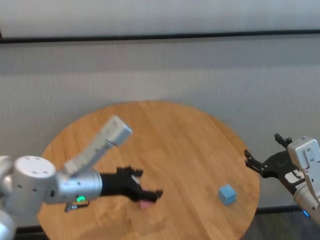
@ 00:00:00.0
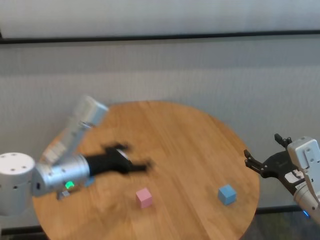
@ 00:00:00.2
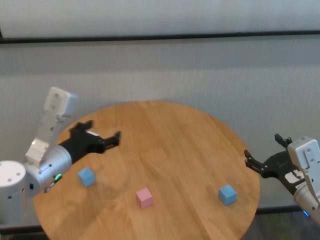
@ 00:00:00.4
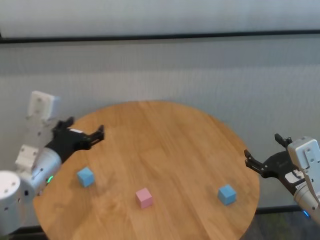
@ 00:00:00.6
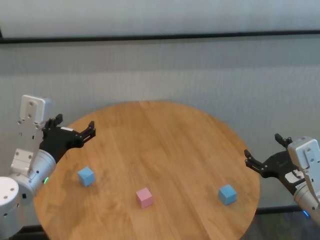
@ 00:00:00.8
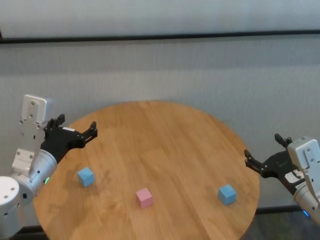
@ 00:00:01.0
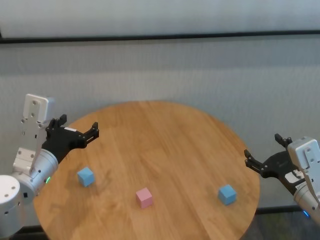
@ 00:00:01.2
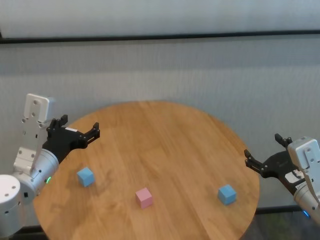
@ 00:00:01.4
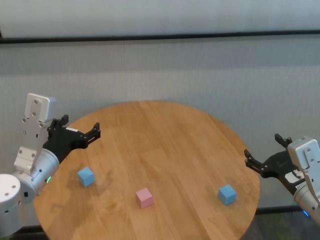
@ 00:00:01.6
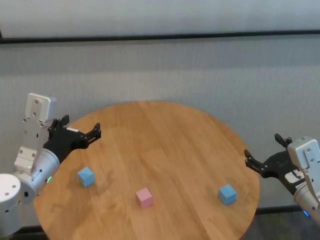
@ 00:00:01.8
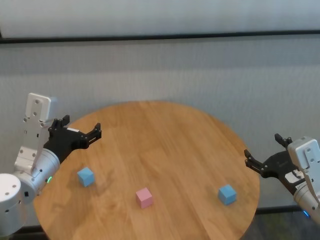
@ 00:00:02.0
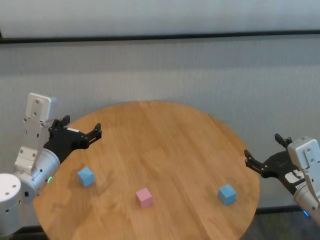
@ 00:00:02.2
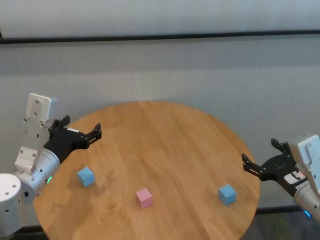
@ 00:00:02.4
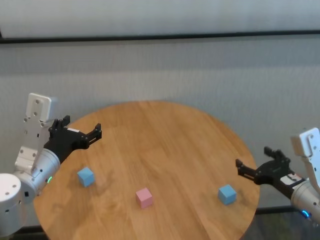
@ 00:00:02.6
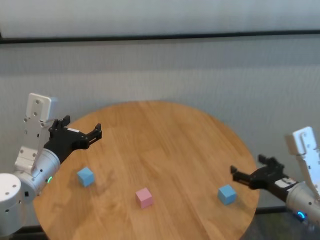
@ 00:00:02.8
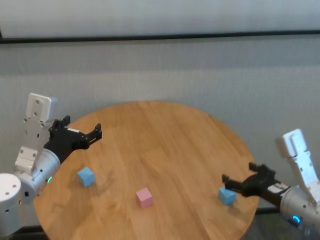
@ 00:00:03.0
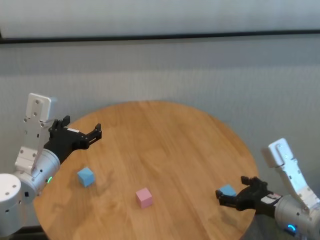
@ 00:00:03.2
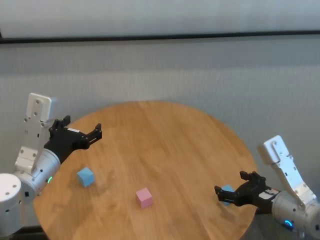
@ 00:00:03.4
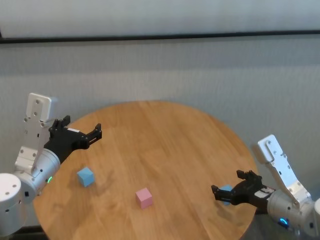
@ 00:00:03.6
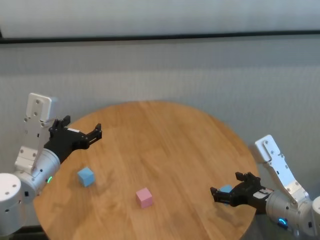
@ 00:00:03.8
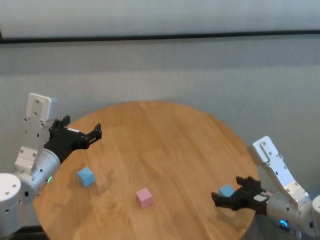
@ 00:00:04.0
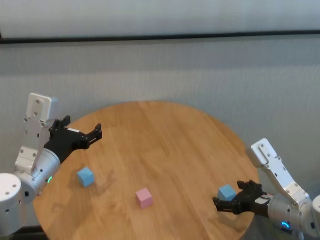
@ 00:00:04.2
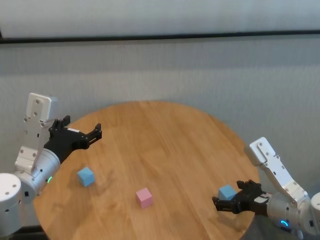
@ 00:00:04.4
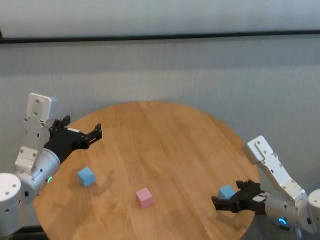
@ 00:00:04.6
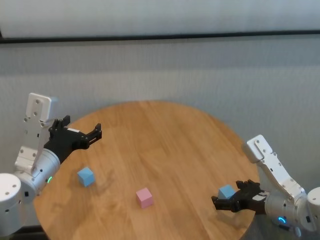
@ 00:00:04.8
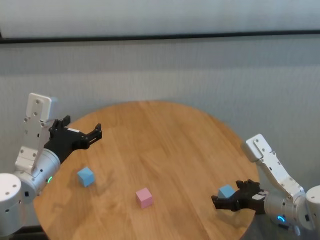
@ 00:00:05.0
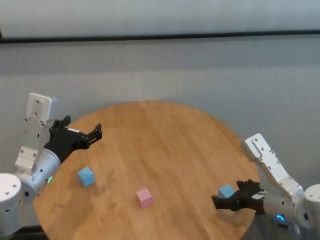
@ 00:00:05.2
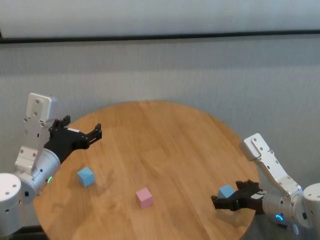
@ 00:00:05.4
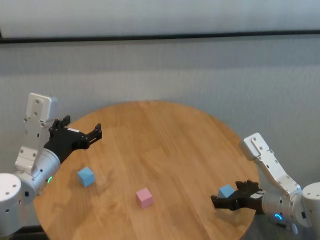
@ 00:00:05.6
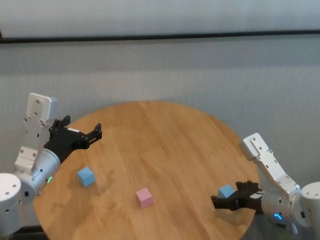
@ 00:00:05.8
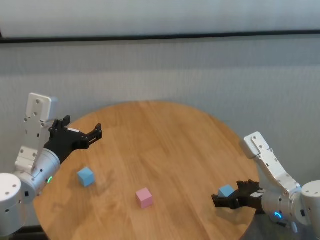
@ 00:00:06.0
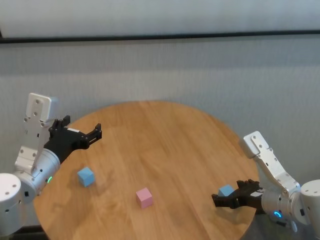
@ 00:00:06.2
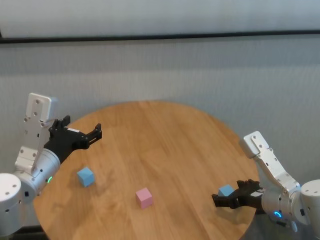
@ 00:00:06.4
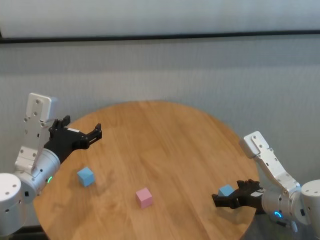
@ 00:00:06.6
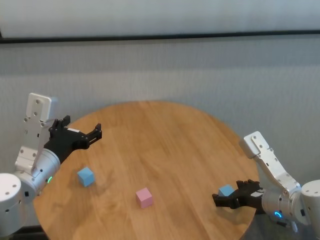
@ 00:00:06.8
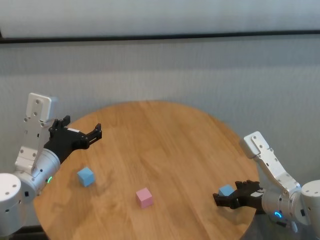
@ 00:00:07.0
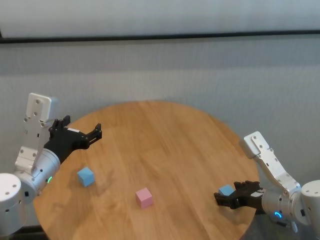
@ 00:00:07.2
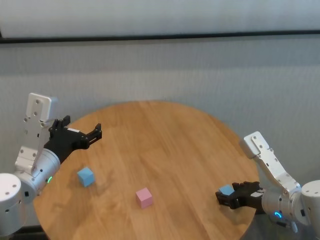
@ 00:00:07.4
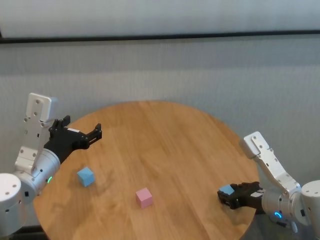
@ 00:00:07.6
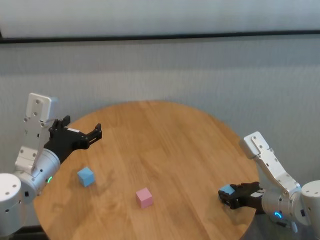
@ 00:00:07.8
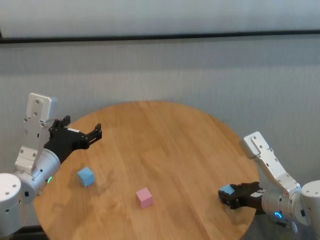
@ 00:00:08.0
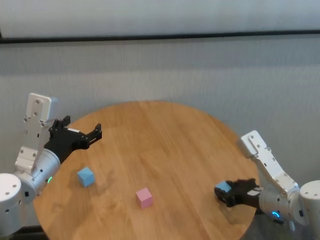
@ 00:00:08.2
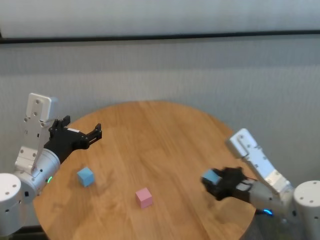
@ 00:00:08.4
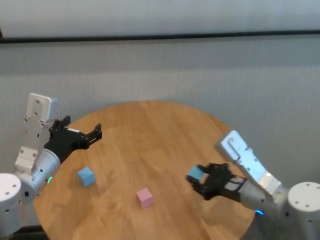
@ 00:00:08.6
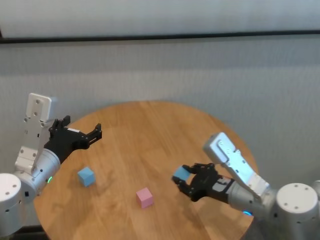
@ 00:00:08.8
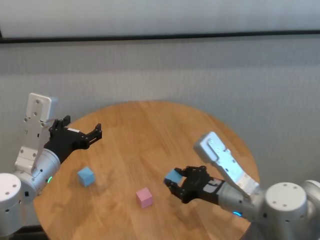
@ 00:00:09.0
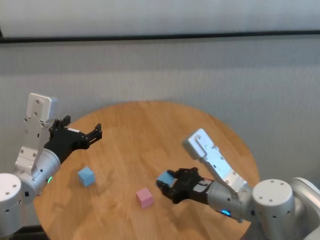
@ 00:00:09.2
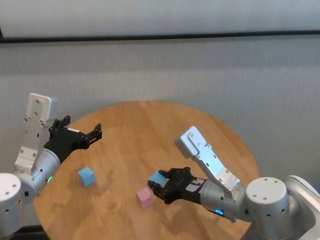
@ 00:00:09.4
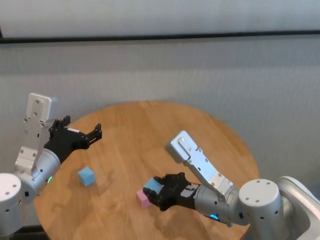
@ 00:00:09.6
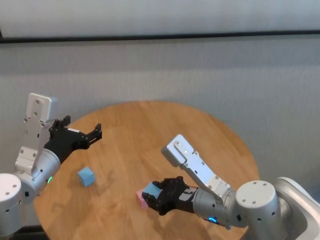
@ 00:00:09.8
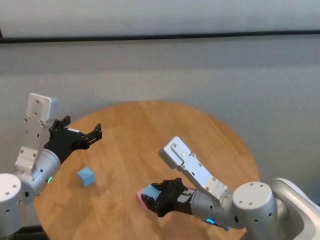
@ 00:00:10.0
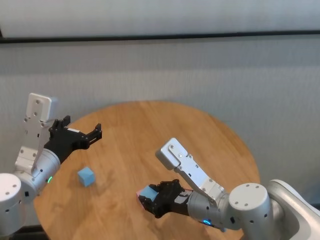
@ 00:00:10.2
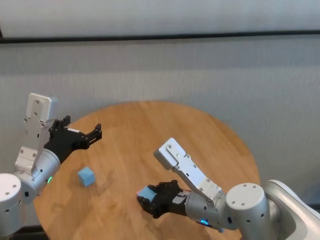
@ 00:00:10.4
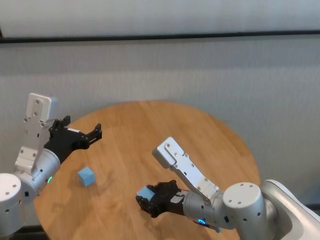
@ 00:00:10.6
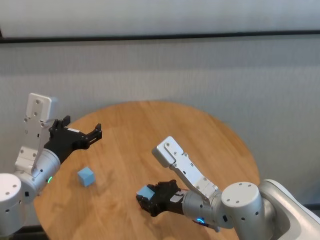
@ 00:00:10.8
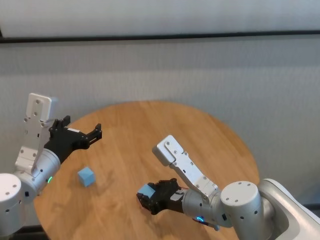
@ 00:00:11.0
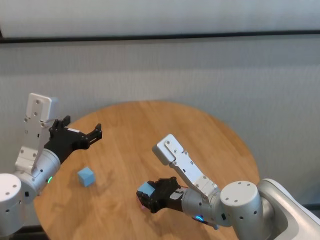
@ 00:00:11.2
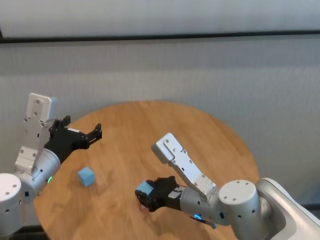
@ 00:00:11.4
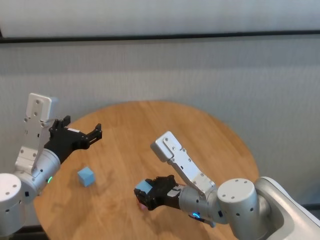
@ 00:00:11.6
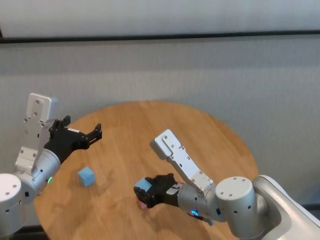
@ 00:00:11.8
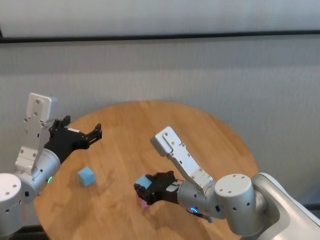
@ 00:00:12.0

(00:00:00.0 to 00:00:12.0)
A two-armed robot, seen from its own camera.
Task of the whole recording: stack building blocks on the table.
Step, 00:00:00.0 - 00:00:07.8: Grasp the blue building block with right gripper.

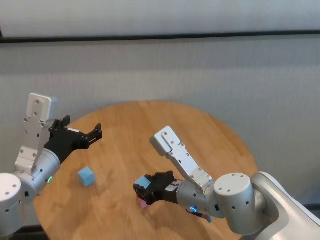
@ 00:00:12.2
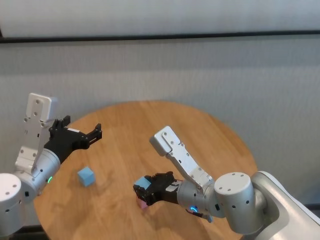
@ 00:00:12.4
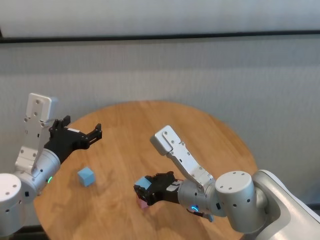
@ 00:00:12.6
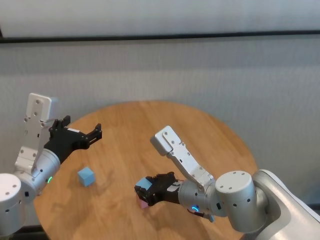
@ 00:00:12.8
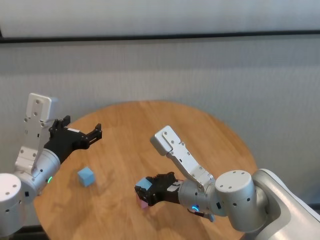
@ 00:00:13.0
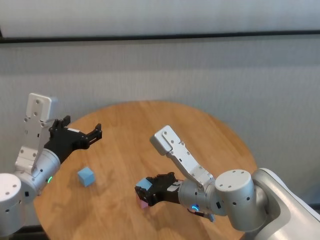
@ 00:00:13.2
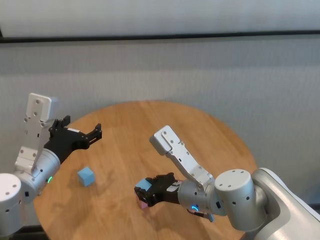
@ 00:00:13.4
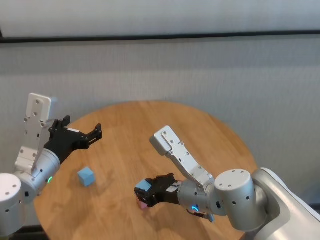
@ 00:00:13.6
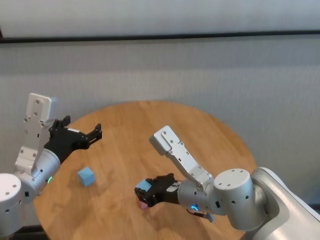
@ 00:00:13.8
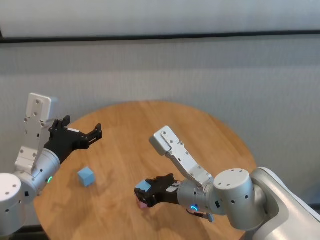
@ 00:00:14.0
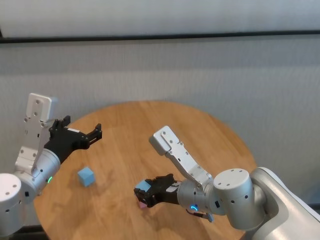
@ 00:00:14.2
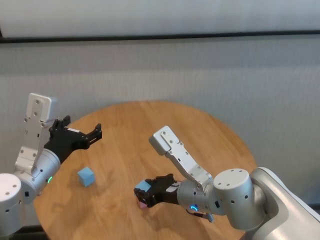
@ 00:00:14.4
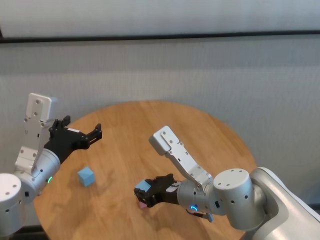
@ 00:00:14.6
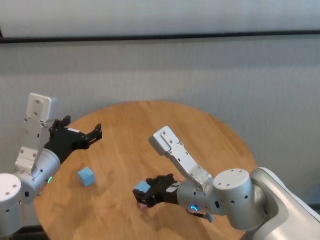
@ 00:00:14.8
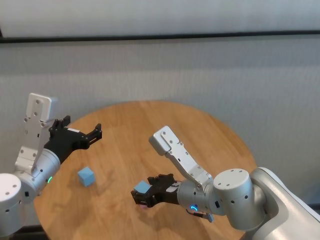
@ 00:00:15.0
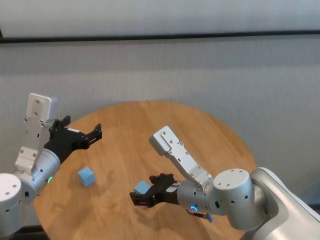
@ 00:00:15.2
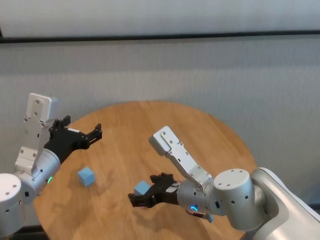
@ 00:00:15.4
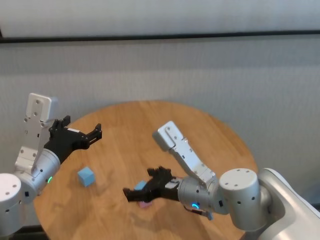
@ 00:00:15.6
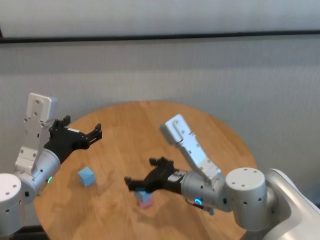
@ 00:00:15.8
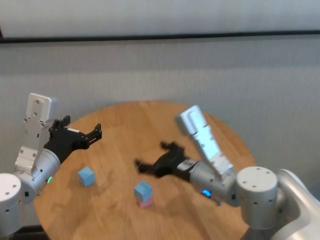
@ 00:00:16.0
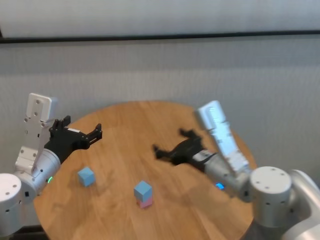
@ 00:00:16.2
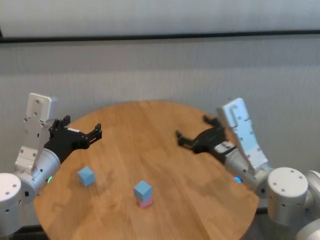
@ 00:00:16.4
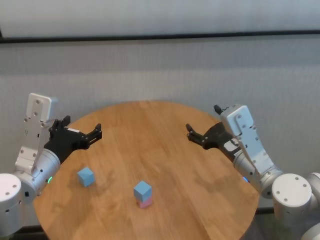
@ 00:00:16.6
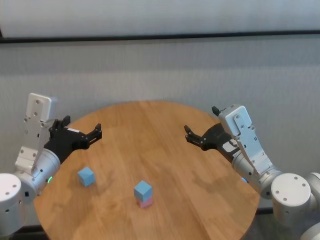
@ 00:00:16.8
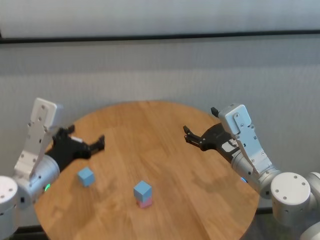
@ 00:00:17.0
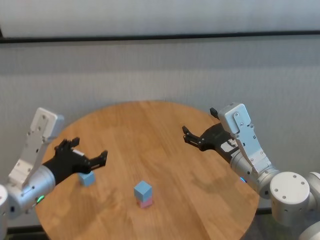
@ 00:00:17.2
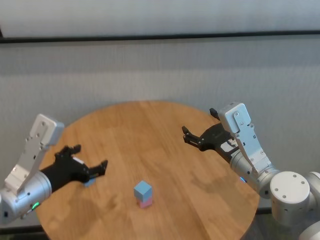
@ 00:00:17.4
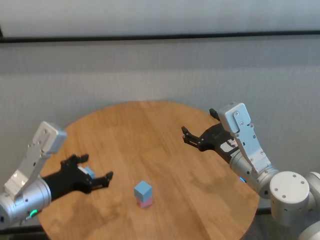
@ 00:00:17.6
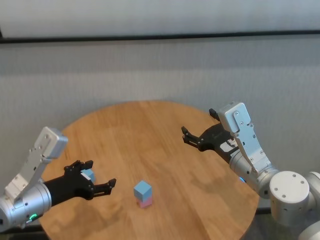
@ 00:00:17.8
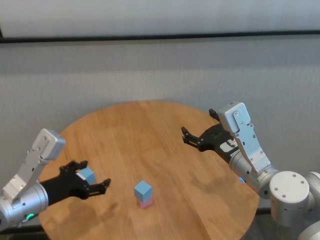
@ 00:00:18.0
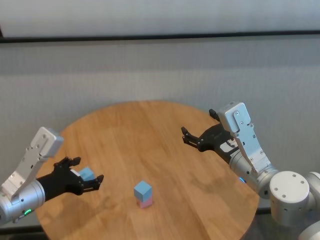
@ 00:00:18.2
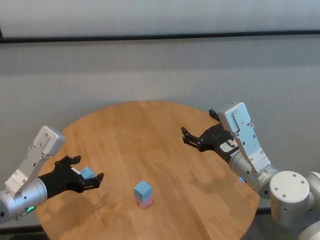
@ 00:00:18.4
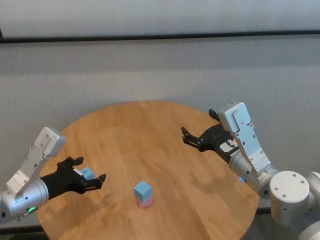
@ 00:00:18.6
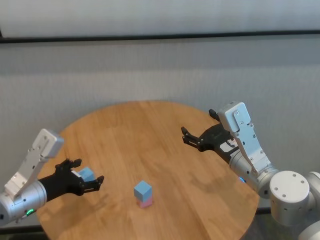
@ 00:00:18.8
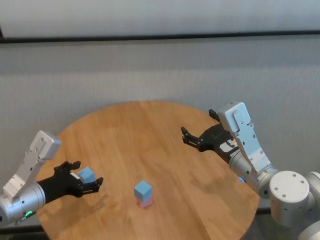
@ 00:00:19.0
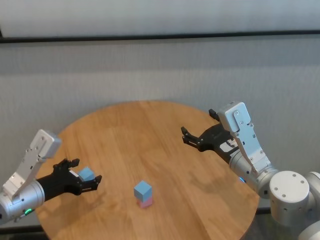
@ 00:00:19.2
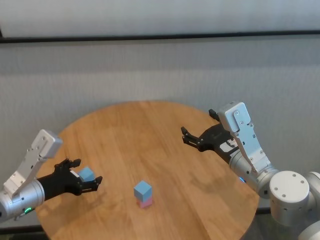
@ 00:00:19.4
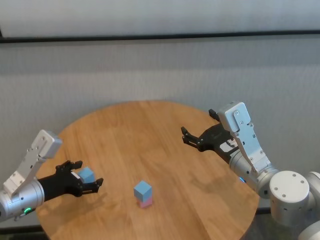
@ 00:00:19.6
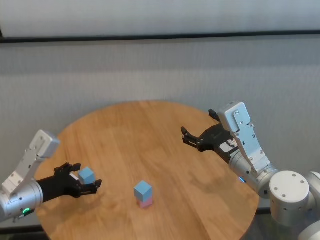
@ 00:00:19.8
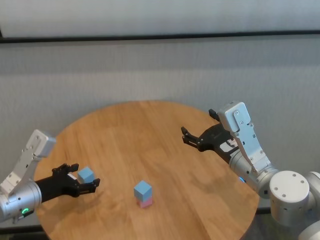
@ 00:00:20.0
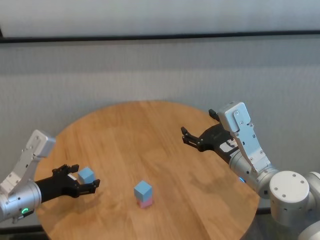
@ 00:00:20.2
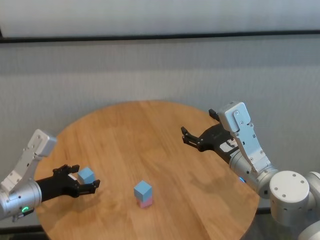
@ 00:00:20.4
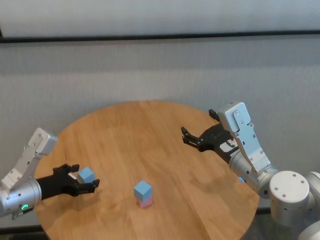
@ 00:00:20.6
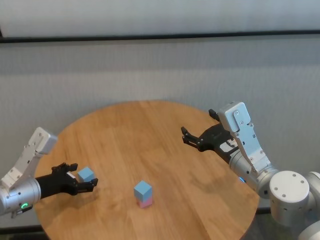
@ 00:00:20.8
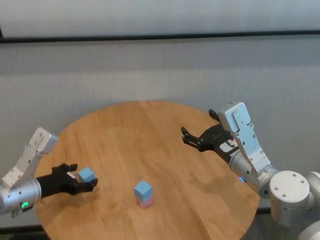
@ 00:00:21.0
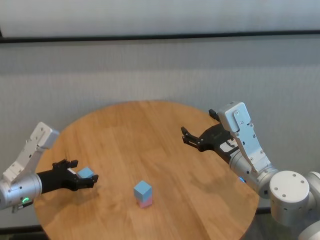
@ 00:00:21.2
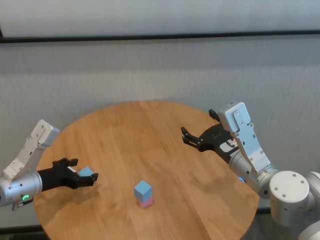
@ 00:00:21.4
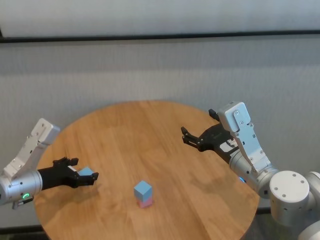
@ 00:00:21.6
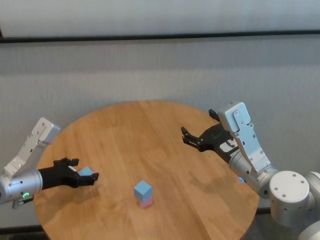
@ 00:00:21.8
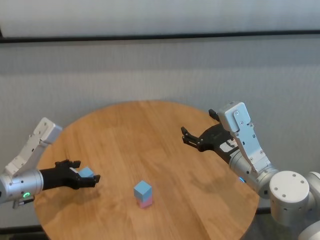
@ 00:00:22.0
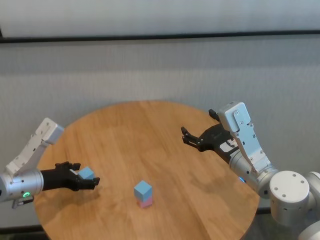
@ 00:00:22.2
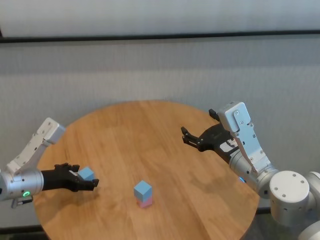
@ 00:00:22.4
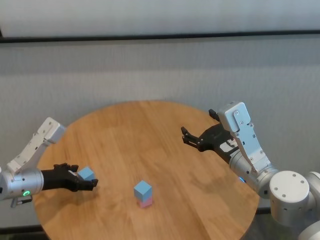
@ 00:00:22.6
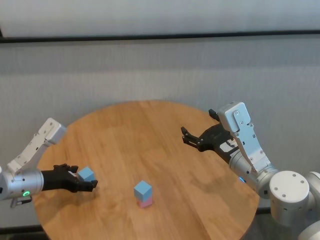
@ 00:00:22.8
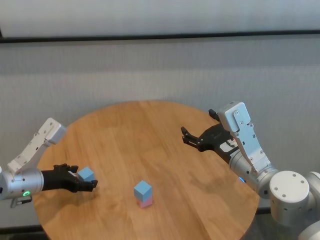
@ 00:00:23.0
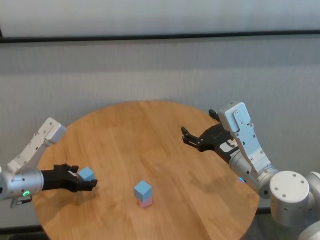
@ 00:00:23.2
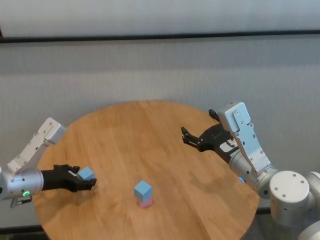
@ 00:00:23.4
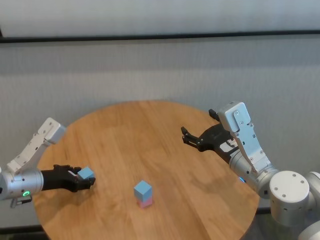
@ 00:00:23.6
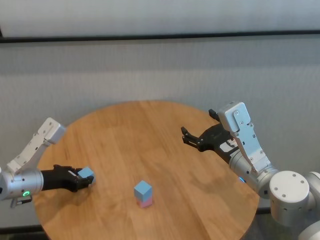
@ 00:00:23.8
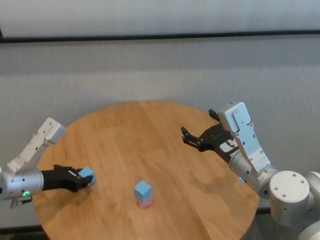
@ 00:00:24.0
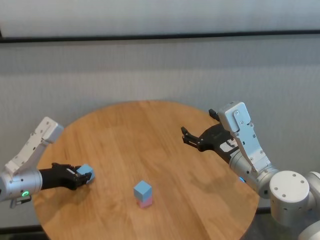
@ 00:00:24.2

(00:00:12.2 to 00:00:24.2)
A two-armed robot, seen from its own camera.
Task of the whole recording: stack building blocks on the table.
Step, 00:00:12.2 - 00:00:14.8: Place the blue building block on the pink building blocks with right gripper.
Step, 00:00:15.2 - 00:00:23.8: Grasp the blue building block with left gripper.
